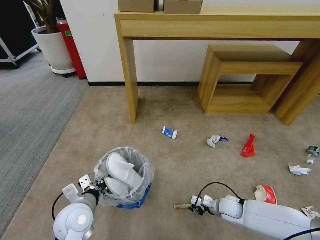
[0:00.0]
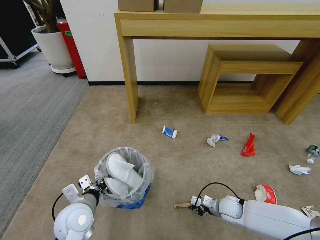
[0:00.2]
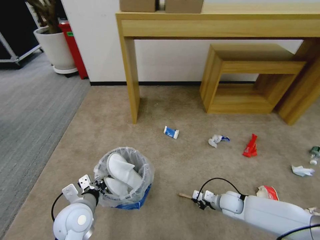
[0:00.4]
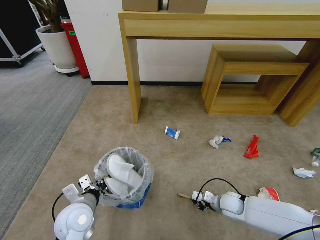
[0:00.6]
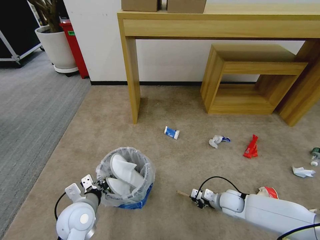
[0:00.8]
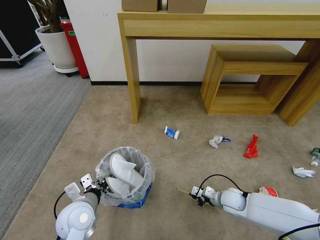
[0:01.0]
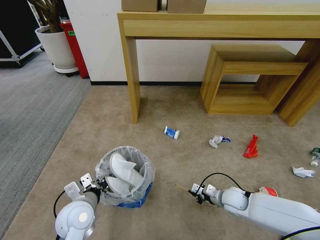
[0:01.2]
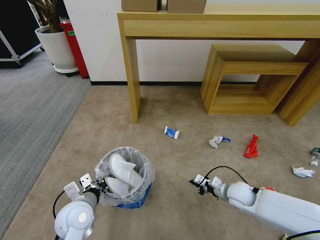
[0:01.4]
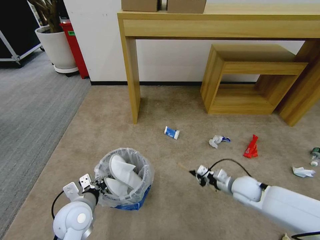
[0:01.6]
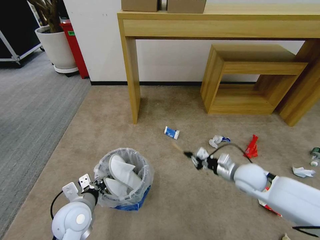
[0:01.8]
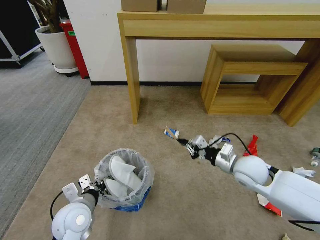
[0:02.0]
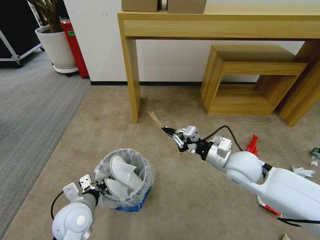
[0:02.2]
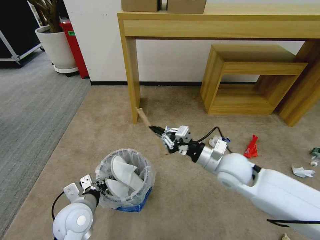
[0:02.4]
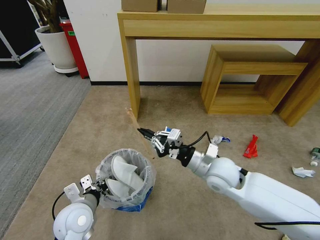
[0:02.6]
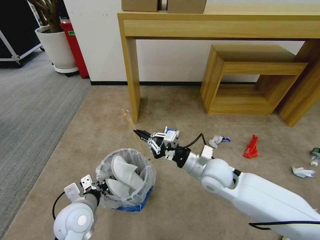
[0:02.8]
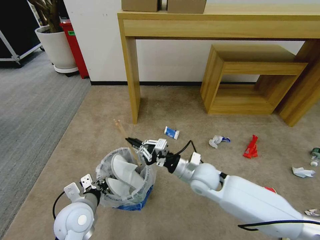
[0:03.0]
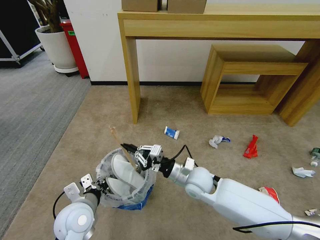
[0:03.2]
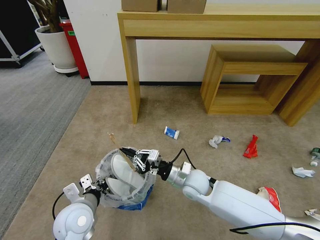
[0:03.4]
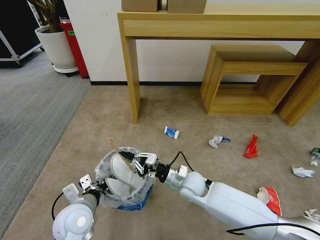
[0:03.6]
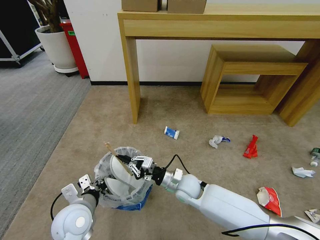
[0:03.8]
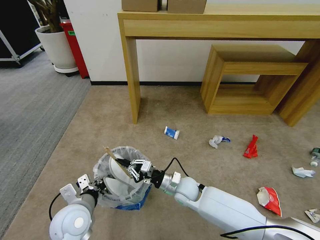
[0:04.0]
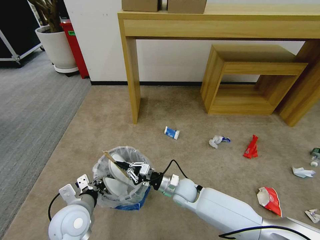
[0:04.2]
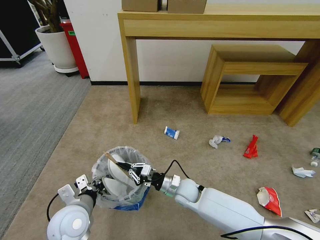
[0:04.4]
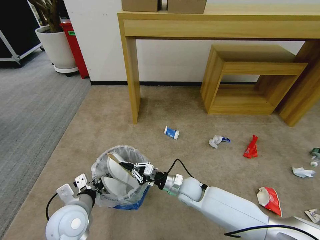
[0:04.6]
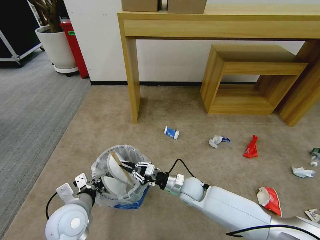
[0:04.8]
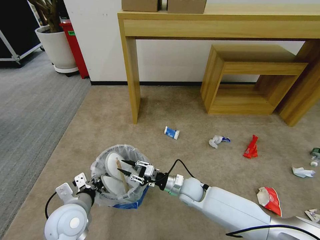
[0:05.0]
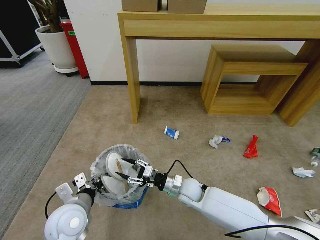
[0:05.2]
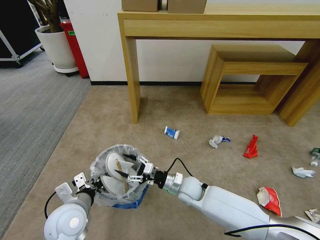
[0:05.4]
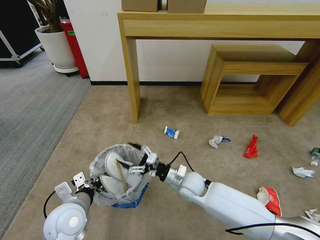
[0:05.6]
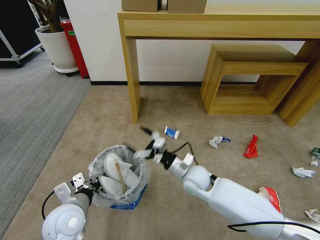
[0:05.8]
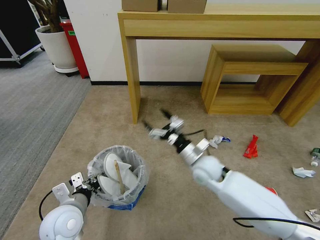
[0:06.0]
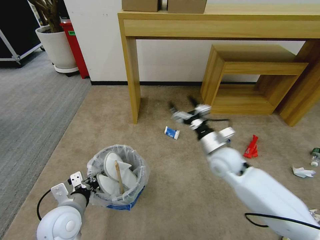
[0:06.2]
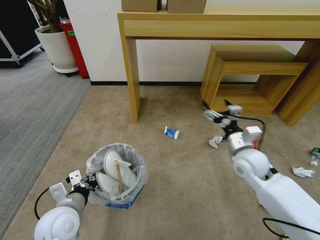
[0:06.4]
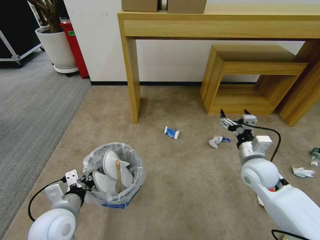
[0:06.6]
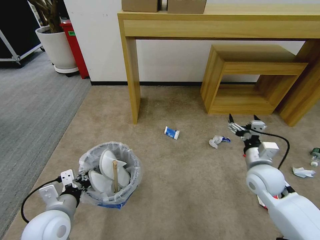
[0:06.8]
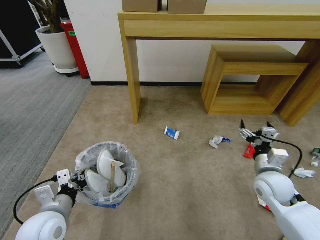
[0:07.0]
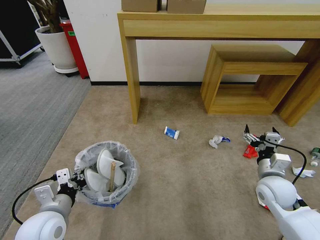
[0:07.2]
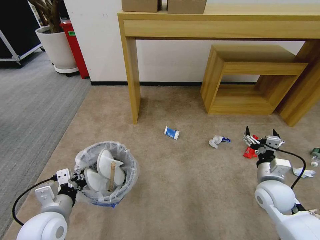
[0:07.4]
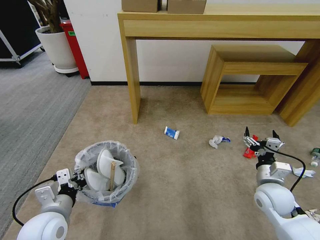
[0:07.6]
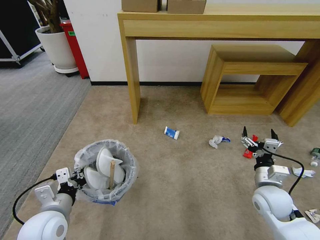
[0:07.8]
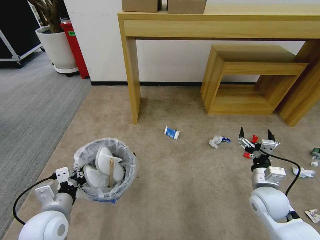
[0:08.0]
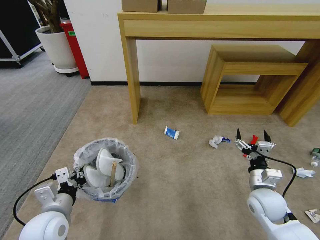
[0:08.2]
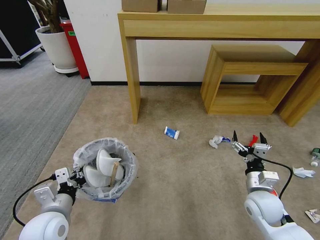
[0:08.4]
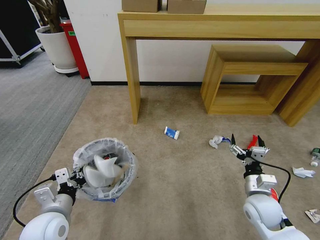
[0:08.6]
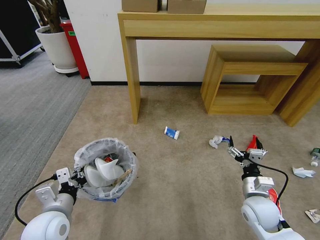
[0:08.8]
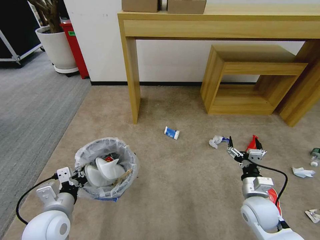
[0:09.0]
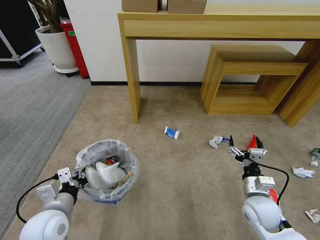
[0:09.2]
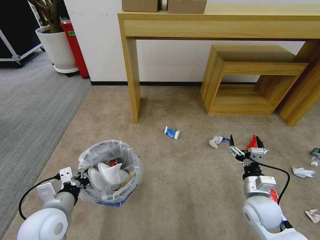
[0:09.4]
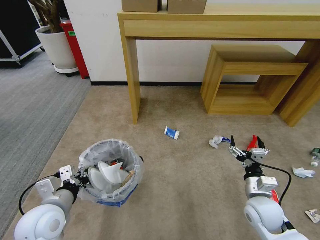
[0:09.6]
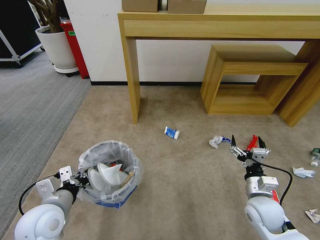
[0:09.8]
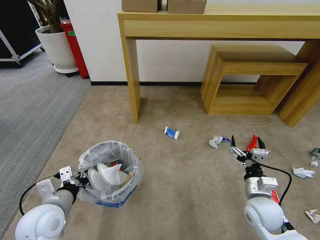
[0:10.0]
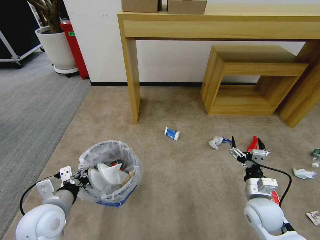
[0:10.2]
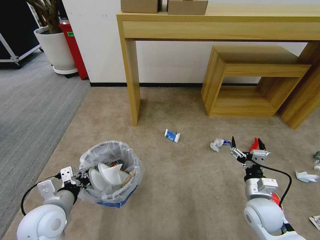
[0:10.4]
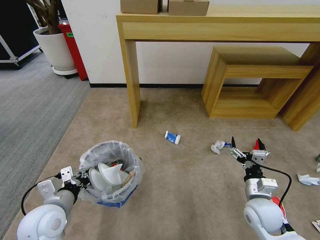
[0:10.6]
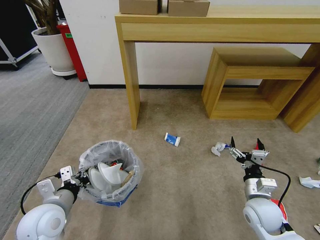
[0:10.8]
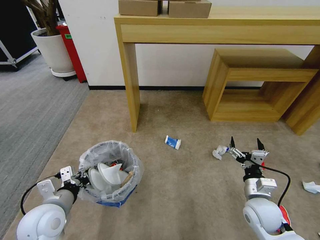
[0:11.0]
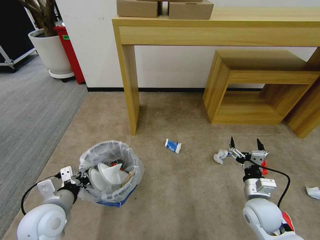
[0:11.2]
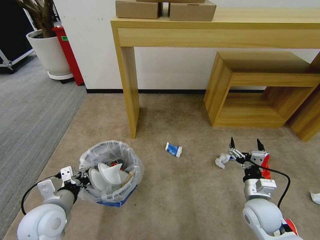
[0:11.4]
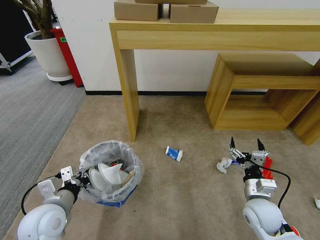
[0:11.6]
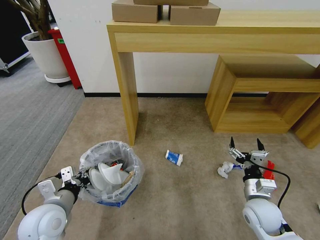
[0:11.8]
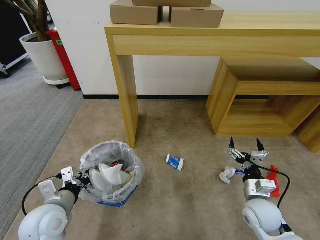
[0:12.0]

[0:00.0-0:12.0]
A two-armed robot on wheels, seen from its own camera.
Task of the whole recording: Pick up the trash bin and place the garbage on the floor into it.
0:00.0 to 0:01.6: The right gripper moves upward, approximately 15 cm, and closes.
0:01.6 to 0:03.0: The right gripper is displaced to the left and upward by roughly 20 cm.
0:03.0 to 0:04.4: The right gripper is displaced downward by approximately 10 cm.
0:04.4 to 0:06.0: The right gripper travels upward and to the right by approximately 15 cm, and opens its fingers.
0:06.0 to 0:07.6: The right gripper moves to the right and backward, roughly 20 cm.
0:07.6 to 0:09.0: The right gripper ends up about 5 cm from where it was.
0:09.0 to 0:10.4: The grippers make only small movements.

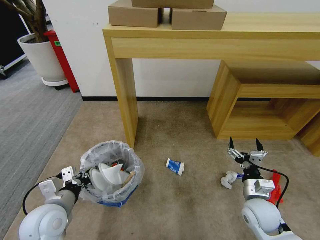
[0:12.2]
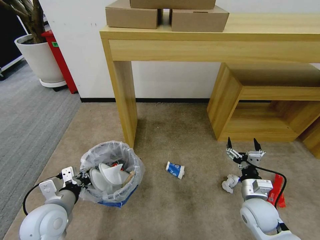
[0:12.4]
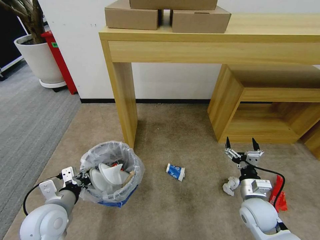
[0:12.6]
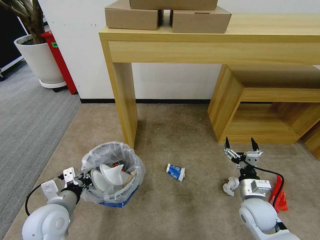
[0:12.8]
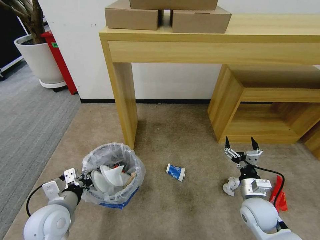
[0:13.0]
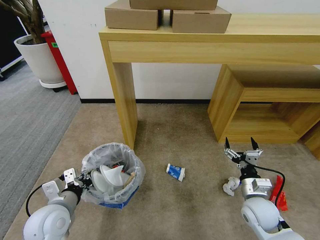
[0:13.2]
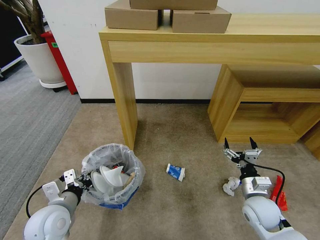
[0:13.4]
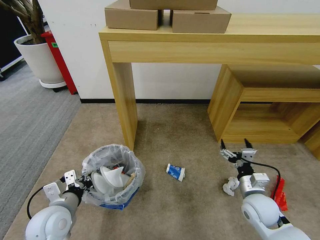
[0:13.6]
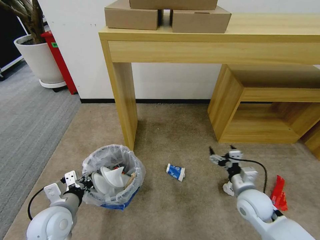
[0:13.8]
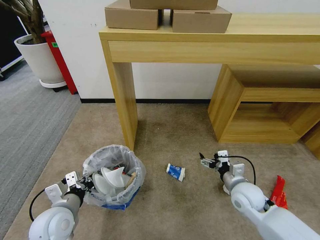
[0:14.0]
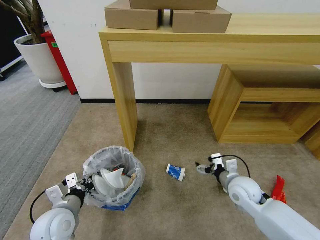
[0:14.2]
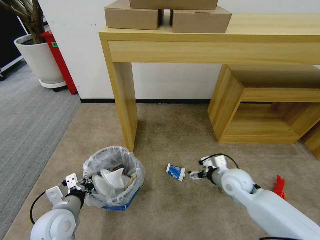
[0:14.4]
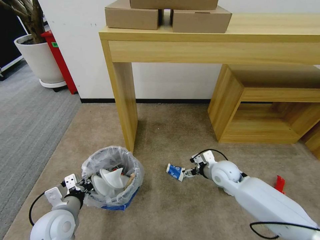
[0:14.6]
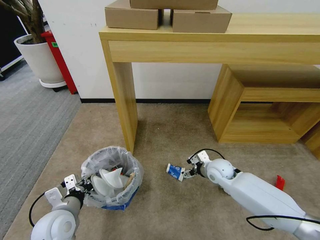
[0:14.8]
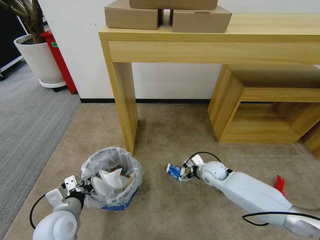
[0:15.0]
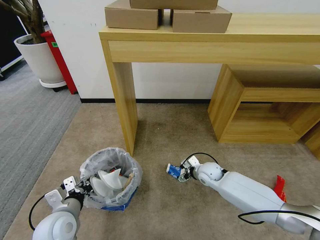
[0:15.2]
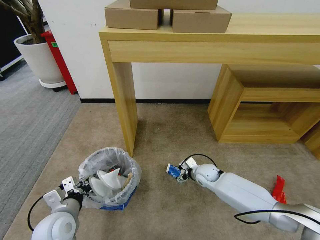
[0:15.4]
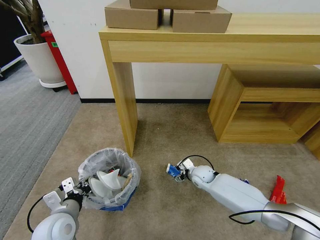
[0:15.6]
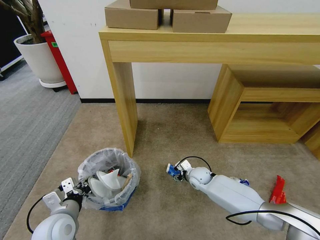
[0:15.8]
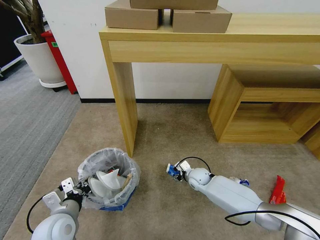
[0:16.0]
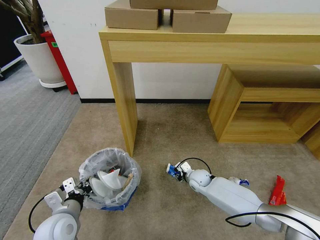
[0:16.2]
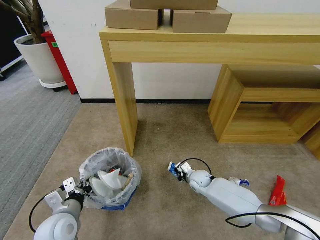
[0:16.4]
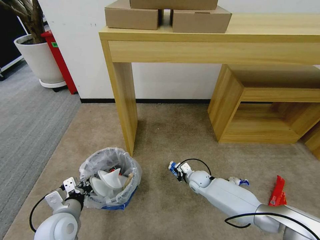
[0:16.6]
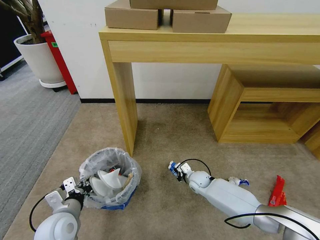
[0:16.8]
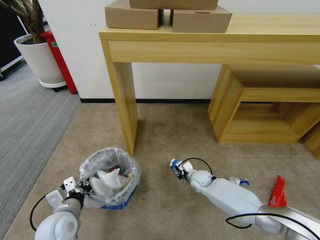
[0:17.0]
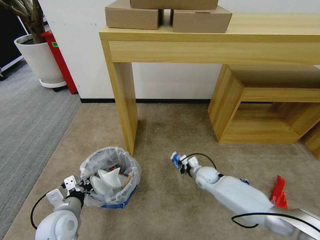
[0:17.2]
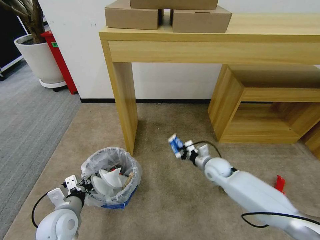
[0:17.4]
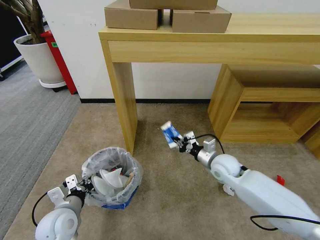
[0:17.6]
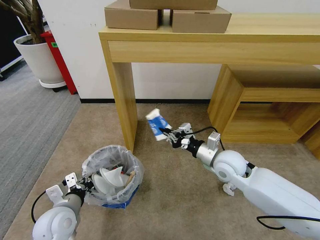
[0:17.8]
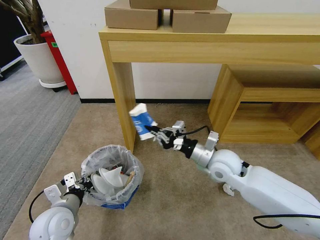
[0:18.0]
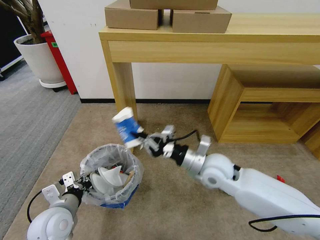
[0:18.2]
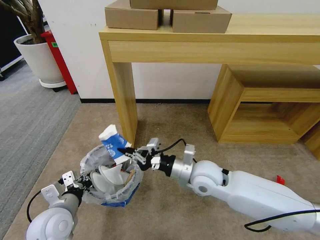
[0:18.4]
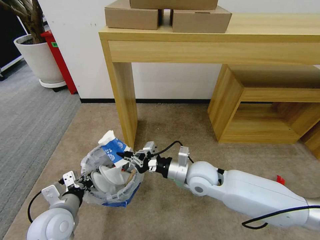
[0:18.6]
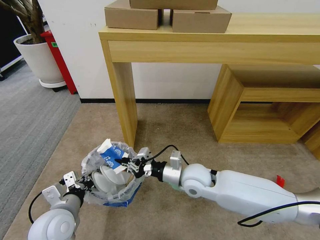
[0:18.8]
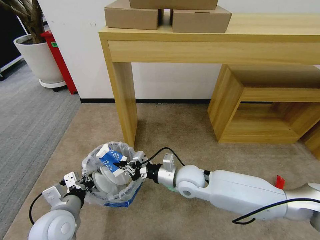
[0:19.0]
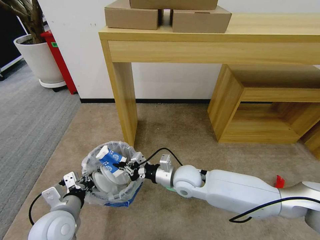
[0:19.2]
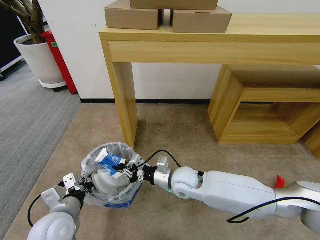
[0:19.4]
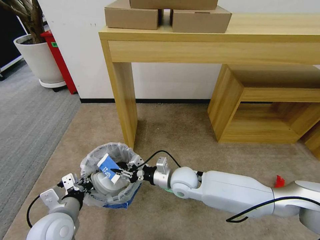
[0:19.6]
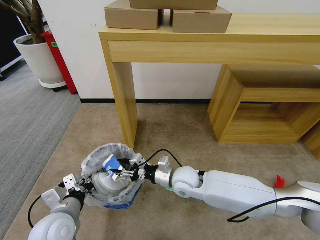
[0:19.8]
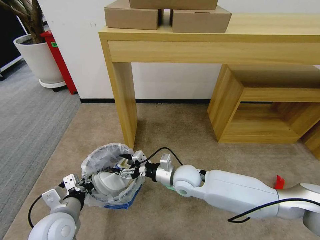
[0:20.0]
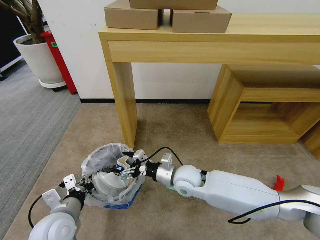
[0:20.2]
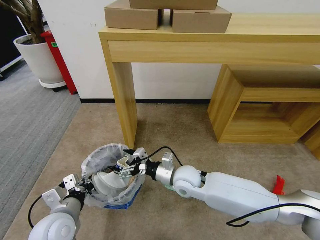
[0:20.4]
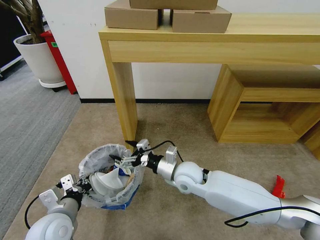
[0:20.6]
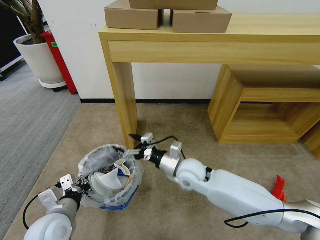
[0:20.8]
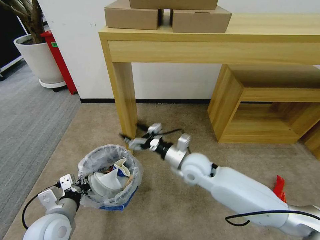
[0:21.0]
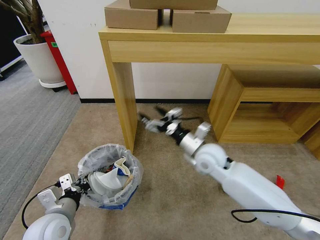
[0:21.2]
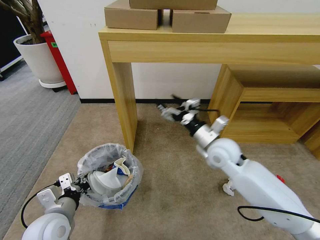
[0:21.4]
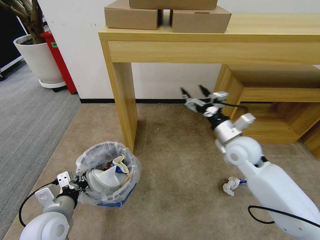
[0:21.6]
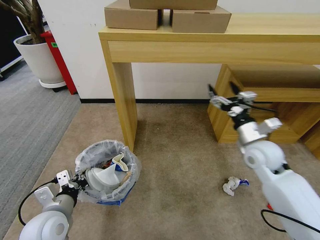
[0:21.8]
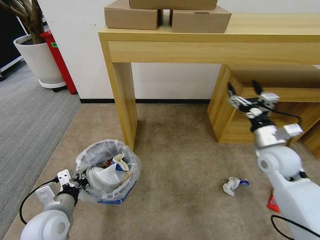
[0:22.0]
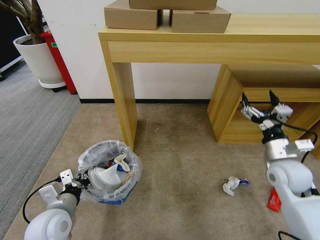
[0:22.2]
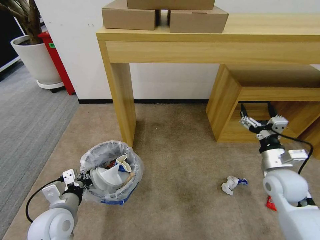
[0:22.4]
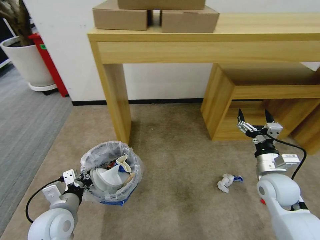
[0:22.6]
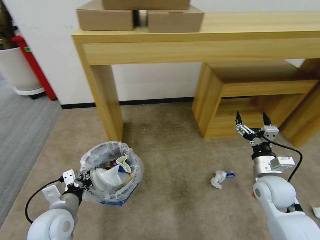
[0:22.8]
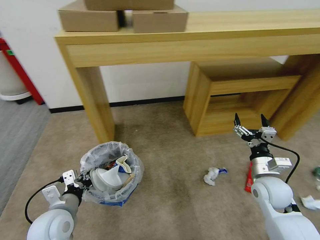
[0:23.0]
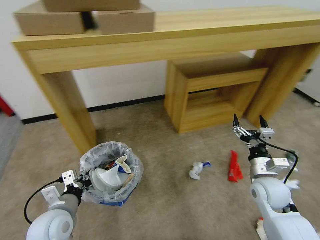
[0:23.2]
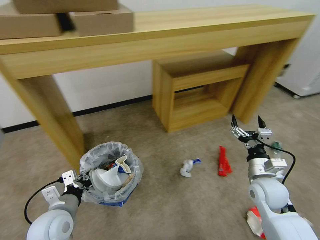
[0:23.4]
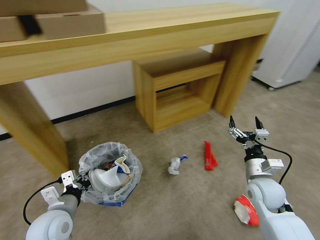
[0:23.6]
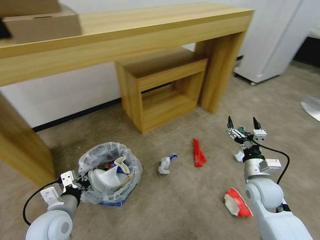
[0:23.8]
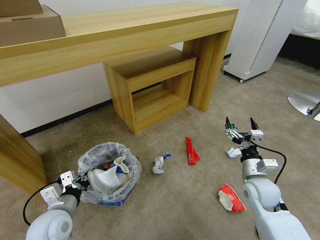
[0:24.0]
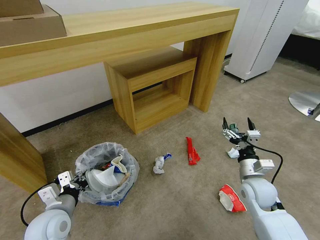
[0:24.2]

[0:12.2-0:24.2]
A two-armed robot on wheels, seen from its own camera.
Task of the whole recording: Pick up the trash bin and place the garbage on the floor into it.
0:13.8 to 0:15.2: The right gripper goes about 20 cm forward, to the left and downward.
0:15.2 to 0:16.6: The right gripper goes roughly 5 cm downward, and closes its fingers.
0:16.6 to 0:18.2: The right gripper goes approximately 25 cm upward.
0:18.2 to 0:19.8: The right gripper heads downward and to the left, covering about 10 cm, and opens.
0:19.8 to 0:21.2: The right gripper travels upward and to the right by some 10 cm, and opens.
0:21.2 to 0:22.6: The right gripper is displaced to the right and backward by approximately 20 cm.
0:22.6 to 0:24.2: The right gripper moves about 5 cm.
